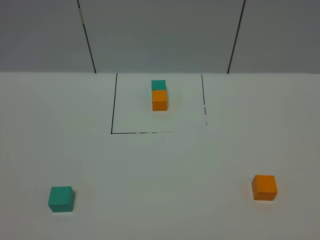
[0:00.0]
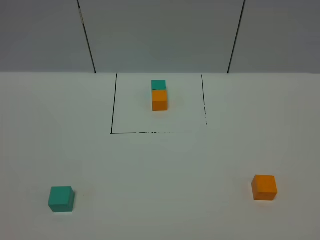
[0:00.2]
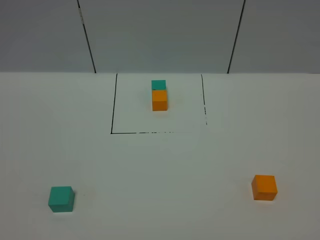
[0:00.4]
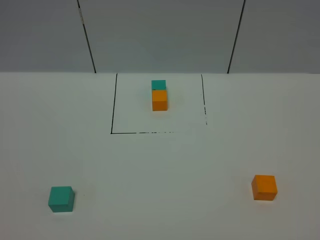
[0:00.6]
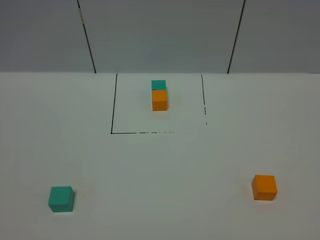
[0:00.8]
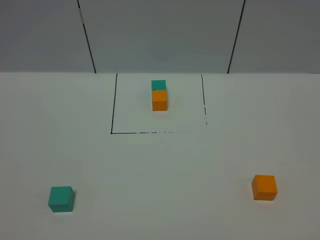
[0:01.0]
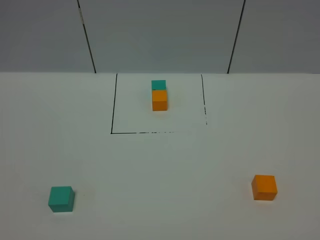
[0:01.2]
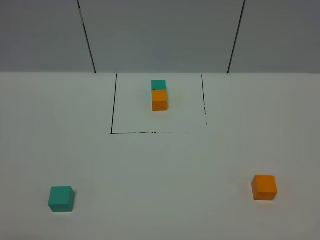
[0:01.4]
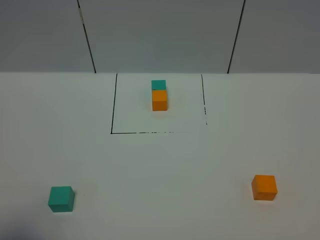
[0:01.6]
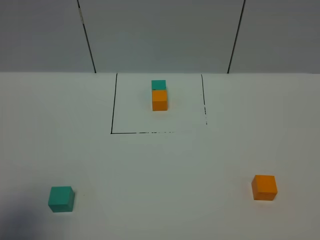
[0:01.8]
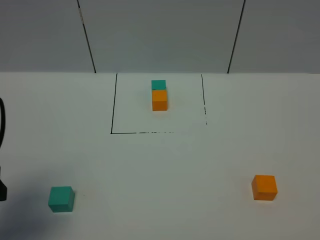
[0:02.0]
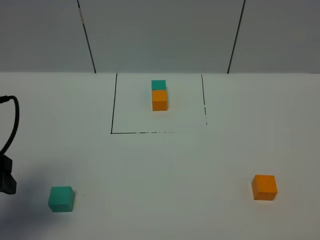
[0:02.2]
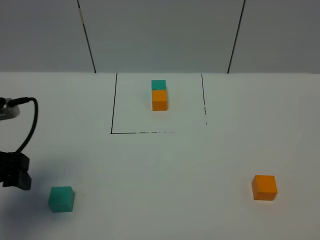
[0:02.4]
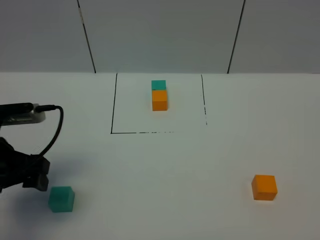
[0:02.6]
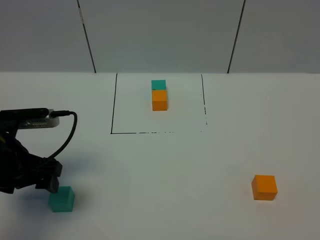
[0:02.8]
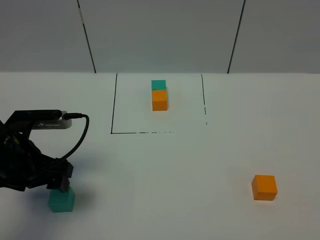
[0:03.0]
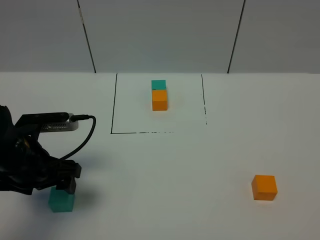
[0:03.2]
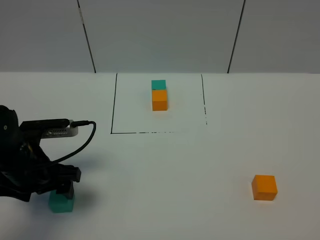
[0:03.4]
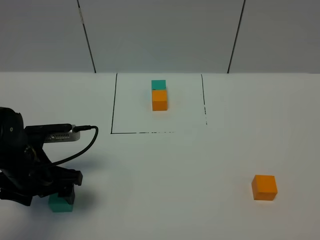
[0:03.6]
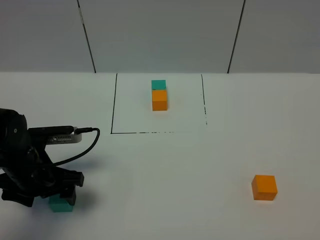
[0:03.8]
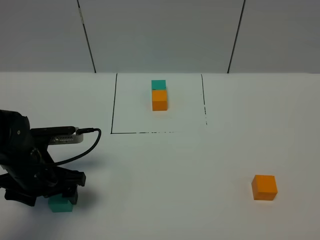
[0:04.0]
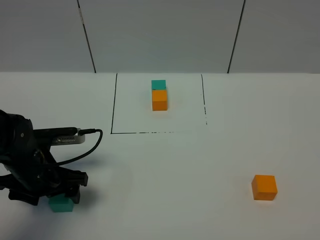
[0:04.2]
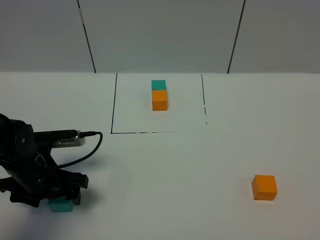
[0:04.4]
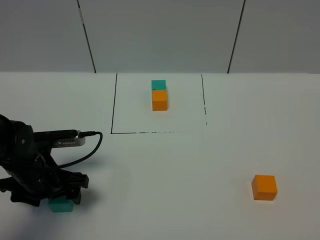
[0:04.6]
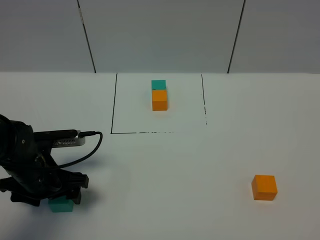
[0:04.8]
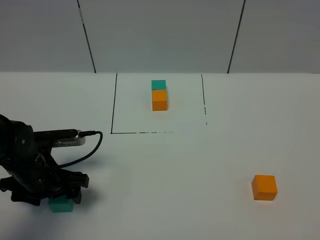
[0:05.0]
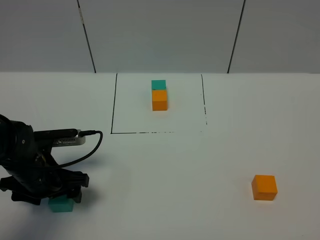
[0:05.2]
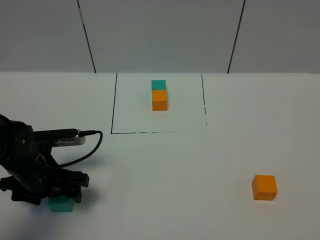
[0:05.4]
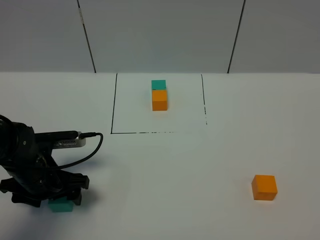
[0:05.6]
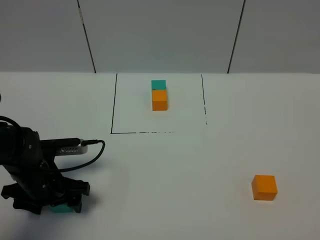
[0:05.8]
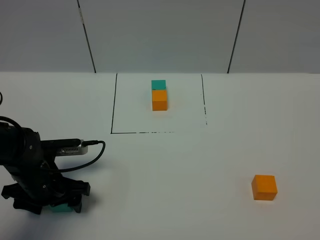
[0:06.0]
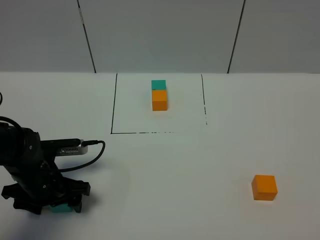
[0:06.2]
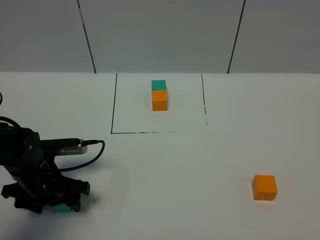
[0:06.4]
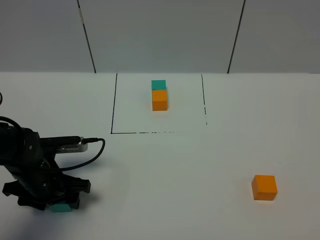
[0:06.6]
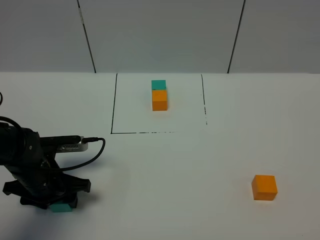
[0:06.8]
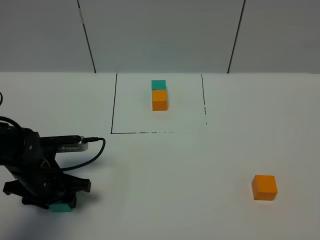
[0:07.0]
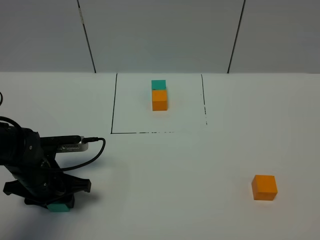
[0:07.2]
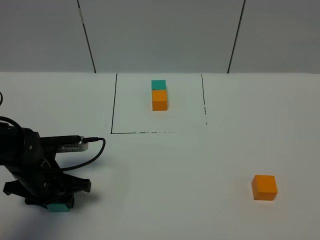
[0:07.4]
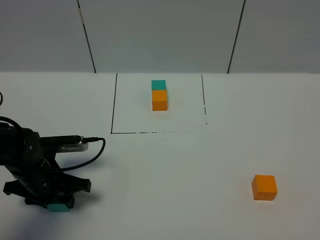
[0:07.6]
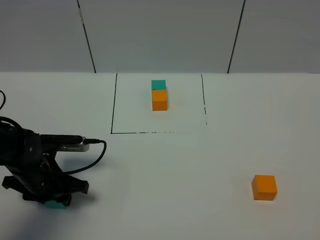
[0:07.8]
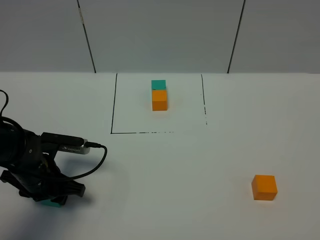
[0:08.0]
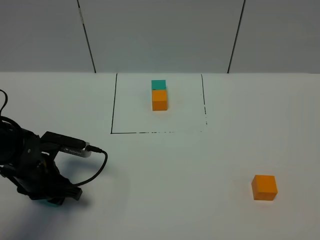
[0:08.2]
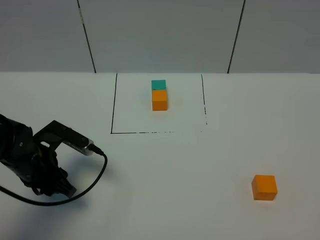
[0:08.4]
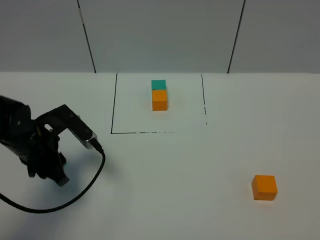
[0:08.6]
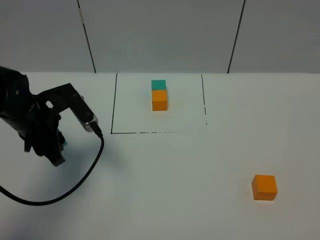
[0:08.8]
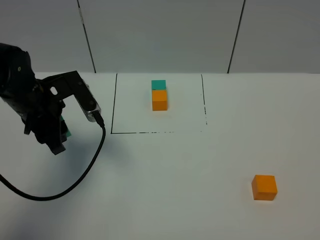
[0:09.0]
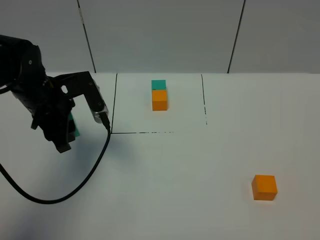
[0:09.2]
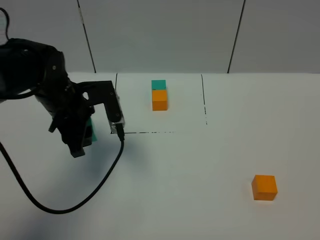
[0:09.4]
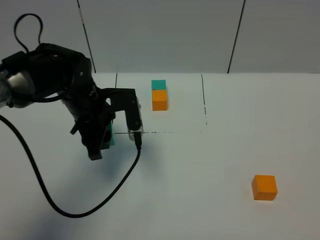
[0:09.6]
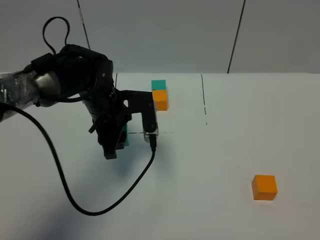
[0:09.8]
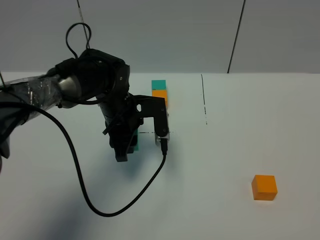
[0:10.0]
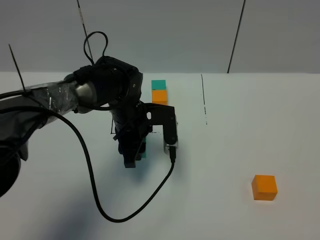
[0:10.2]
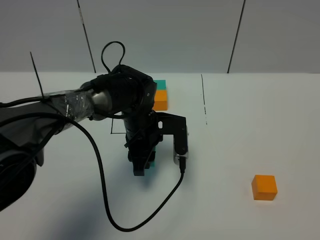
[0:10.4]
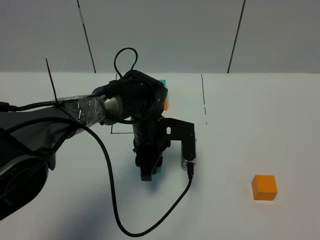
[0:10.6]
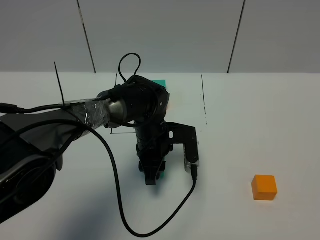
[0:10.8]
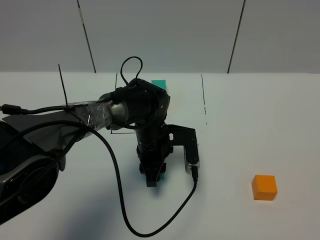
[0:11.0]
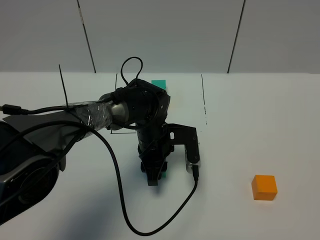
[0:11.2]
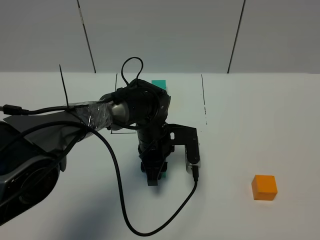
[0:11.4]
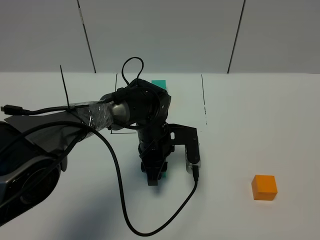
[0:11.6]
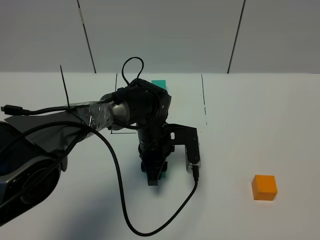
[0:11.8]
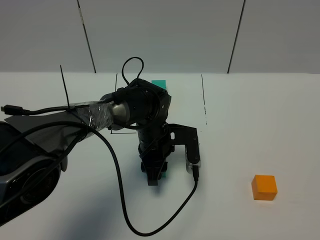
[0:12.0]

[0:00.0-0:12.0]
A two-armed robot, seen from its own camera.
Task of the whole recording: According to the building block template in front, assemble the scattered blocks together.
0:00.0 to 0:01.6: The left gripper moves forward, some 10 cm.
0:01.6 to 0:03.0: The left gripper heads forward and downward, covering roughly 20 cm.
0:03.0 to 0:04.4: The left gripper shifts roughly 5 cm downward.
0:04.4 to 0:06.0: The grippers make only small movements.
0:06.0 to 0:07.6: The left gripper closes.
0:07.6 to 0:09.0: The left gripper moves upward and forward, some 15 cm.
0:09.0 to 0:10.4: The left gripper goes about 20 cm to the right and downward.
0:10.4 to 0:12.0: There are only small adjustments of the grippers.

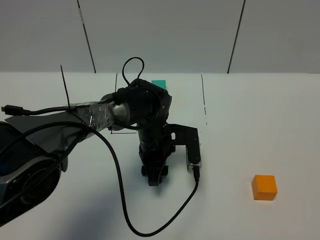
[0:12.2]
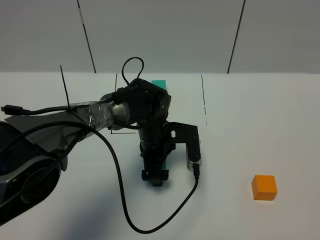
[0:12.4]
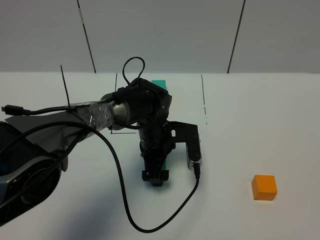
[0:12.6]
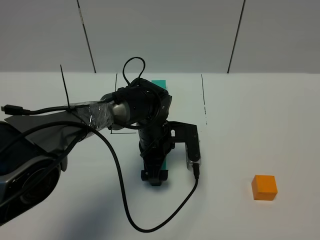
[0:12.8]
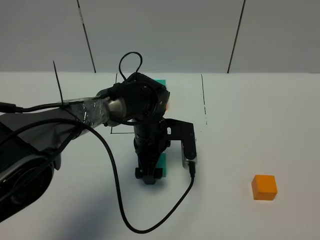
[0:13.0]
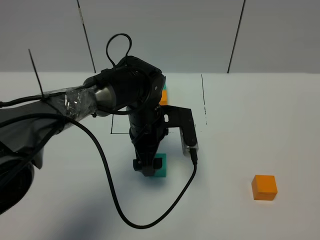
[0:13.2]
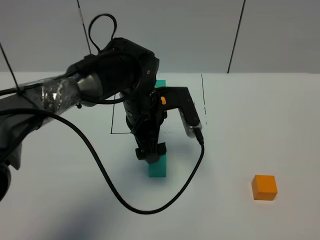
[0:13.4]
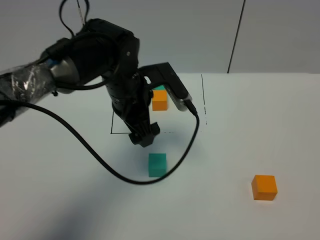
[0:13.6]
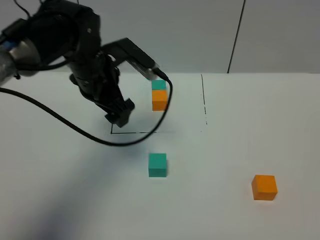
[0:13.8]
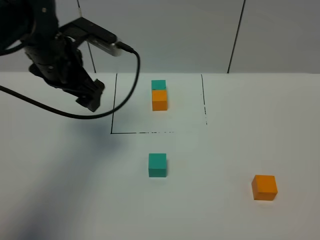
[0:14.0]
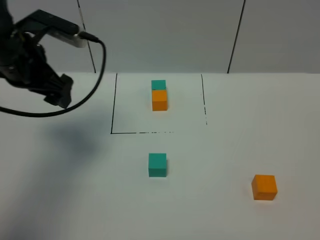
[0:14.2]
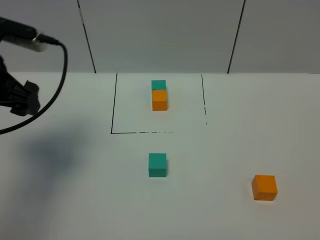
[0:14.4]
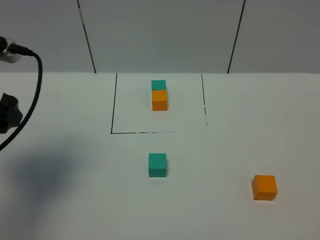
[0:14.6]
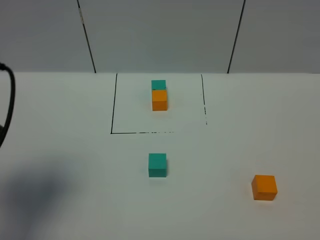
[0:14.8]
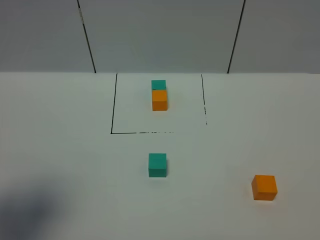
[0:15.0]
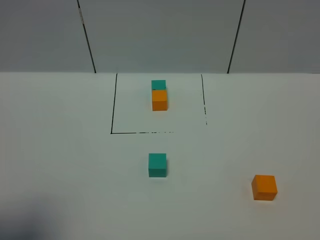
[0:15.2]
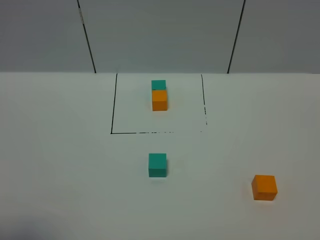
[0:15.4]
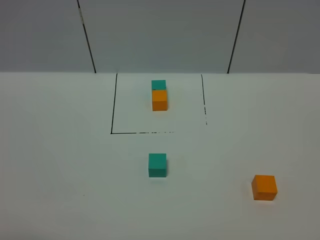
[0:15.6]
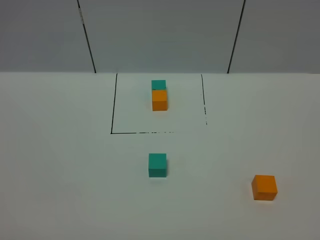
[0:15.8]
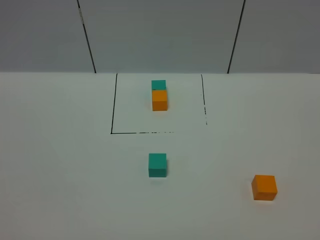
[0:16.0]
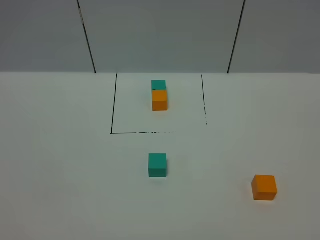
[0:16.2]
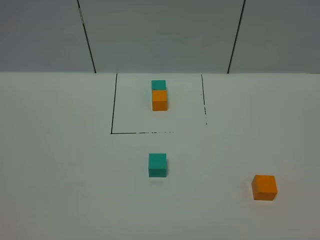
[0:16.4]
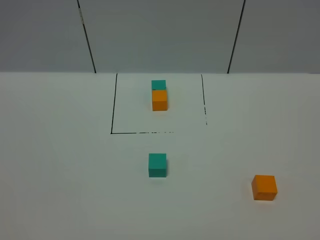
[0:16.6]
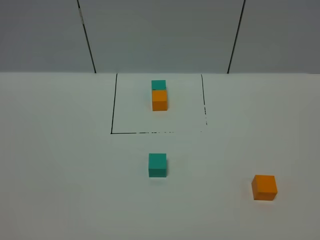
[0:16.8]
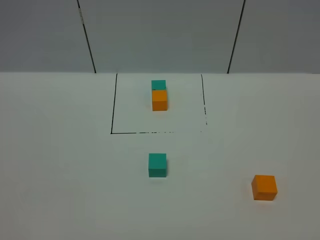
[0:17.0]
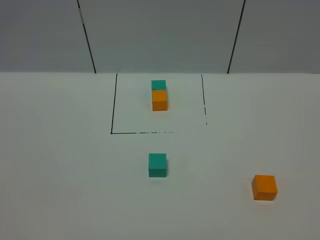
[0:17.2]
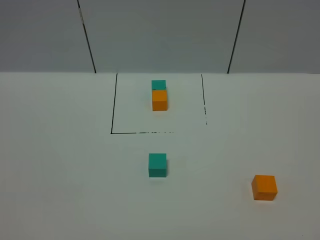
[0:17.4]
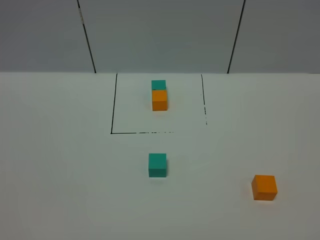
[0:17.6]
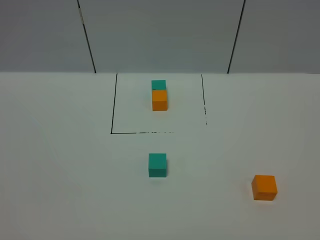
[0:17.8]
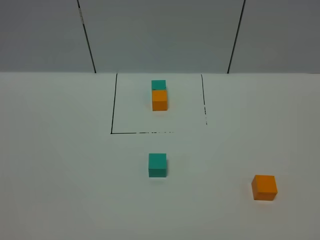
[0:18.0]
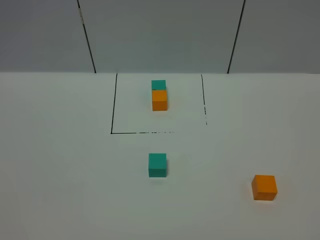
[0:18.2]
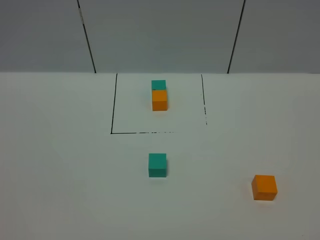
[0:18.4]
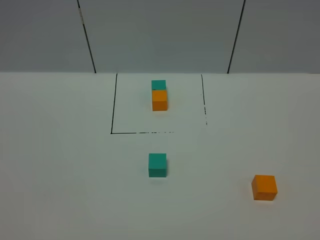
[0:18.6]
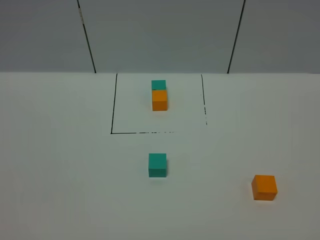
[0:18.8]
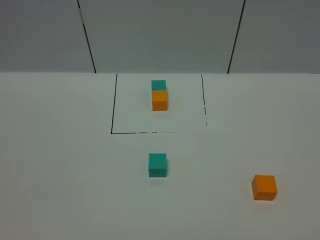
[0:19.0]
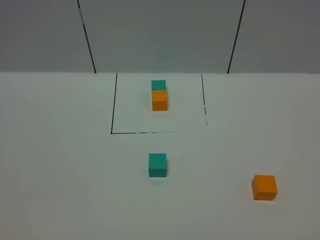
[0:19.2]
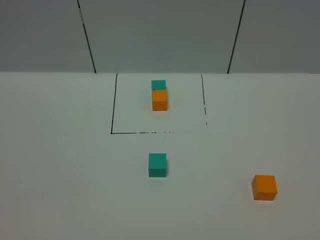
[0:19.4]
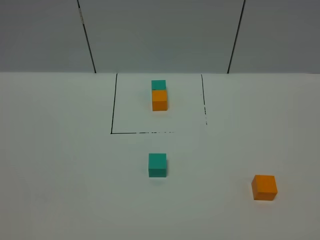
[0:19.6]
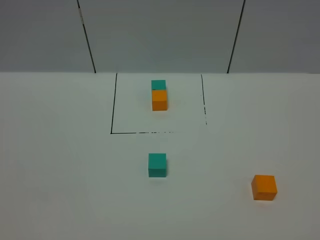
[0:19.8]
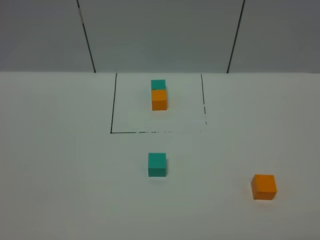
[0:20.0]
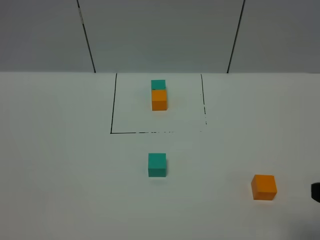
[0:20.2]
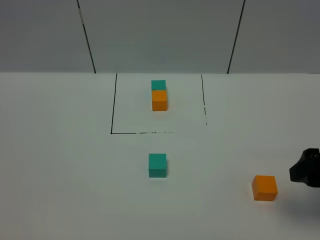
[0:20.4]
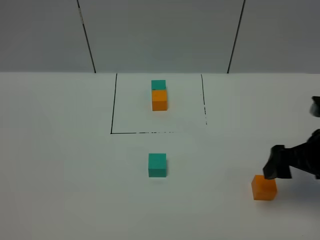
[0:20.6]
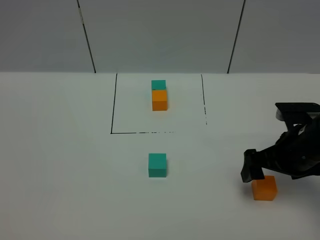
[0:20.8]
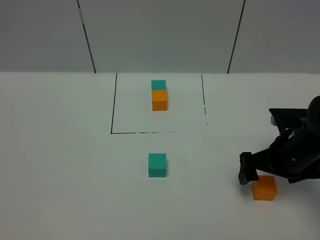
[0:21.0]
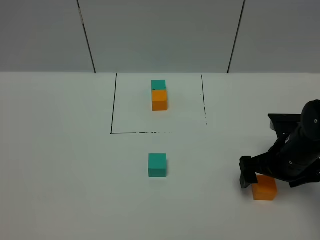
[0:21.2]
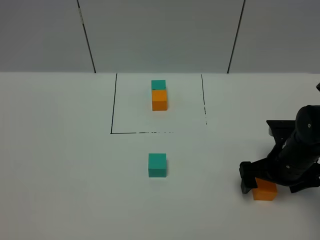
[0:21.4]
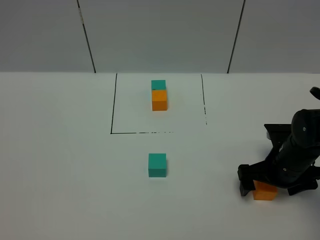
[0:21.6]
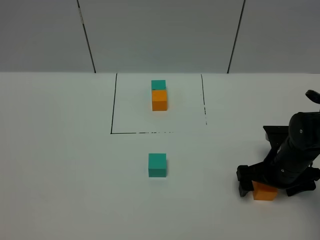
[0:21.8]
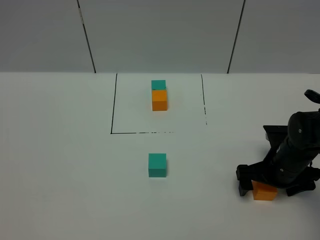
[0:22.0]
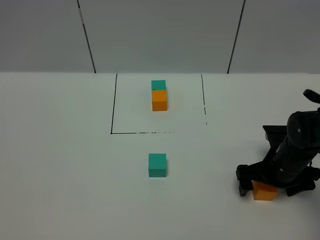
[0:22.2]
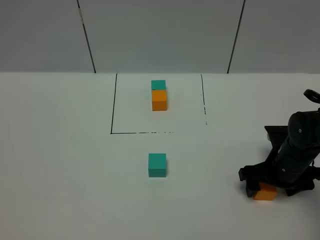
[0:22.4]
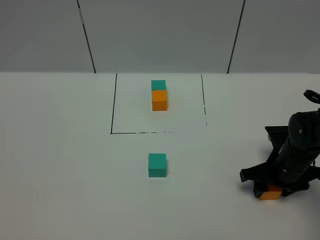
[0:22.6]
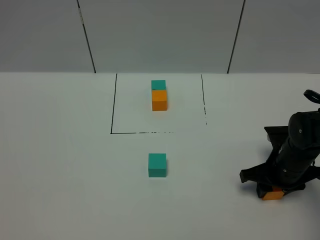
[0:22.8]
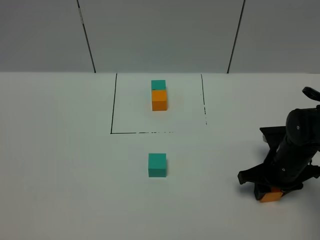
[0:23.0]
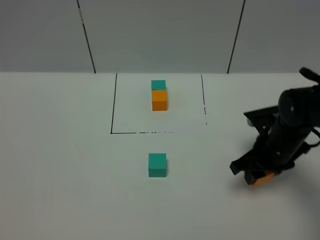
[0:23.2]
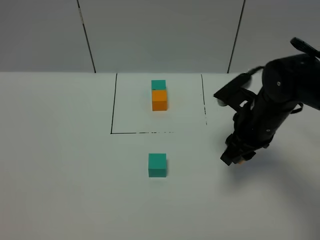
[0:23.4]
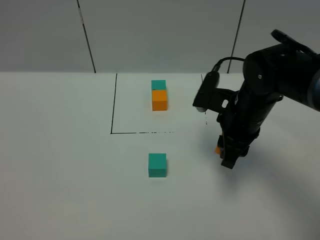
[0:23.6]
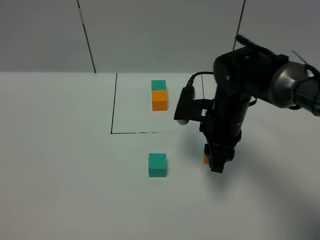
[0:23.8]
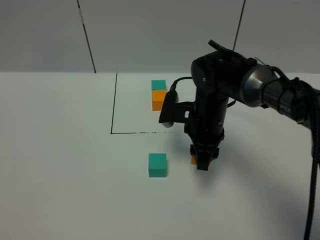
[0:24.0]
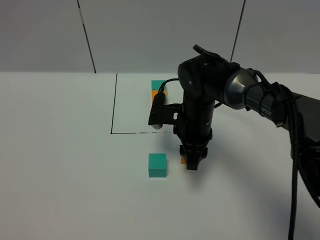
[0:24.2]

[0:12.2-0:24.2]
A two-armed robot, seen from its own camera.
Task of the whole recording: According to the building block template in front, assemble the scattered blocks together.
0:12.2 to 0:13.8: The left gripper is displaced upward and to the left by approximately 20 cm, and opens its fingers.
0:13.8 to 0:15.2: The left gripper moves backward and to the left, some 35 cm.
0:15.2 to 0:16.6: The left gripper goes about 10 cm backward and downward.
0:16.6 to 0:18.2: Neither gripper changes place.
0:19.8 to 0:21.2: The right gripper travels forward and downward by roughly 35 cm.
0:21.2 to 0:22.6: The right gripper closes up.
0:22.6 to 0:24.2: The right gripper travels to the left by some 20 cm.
